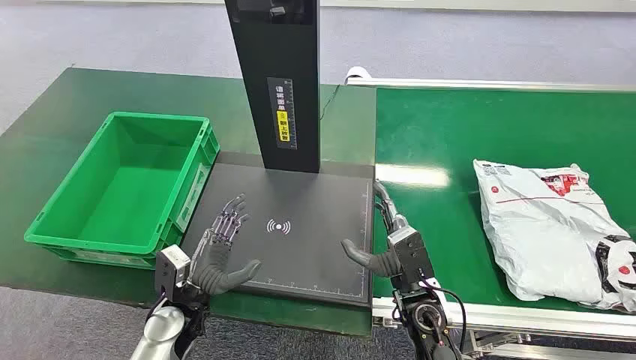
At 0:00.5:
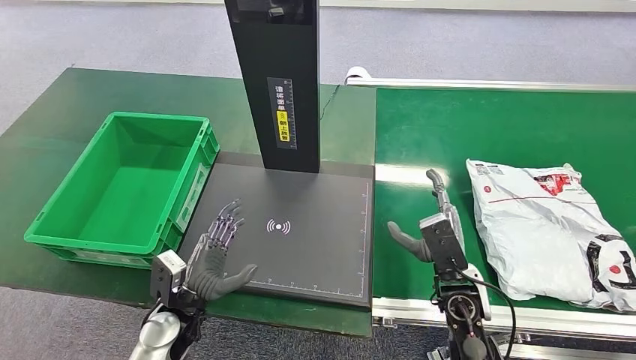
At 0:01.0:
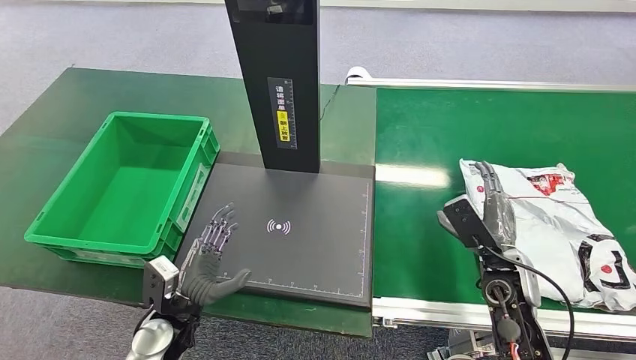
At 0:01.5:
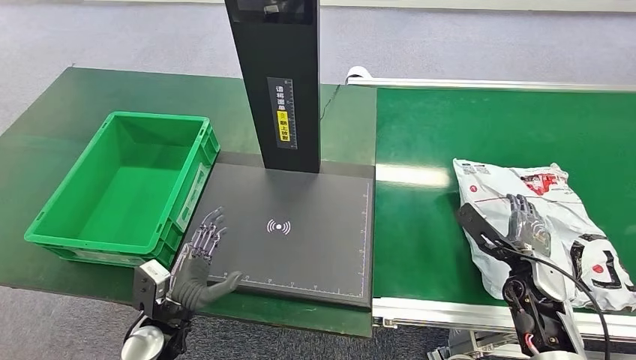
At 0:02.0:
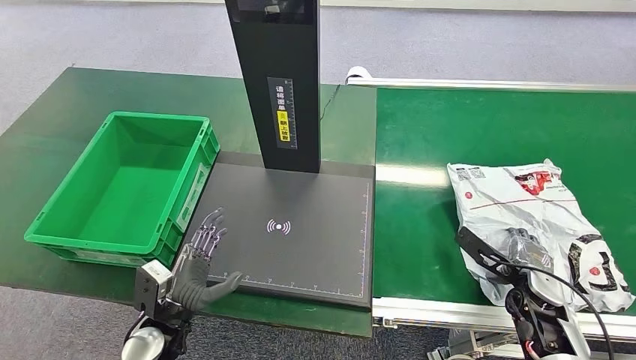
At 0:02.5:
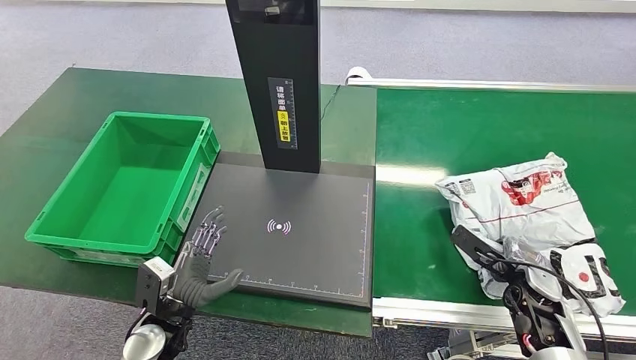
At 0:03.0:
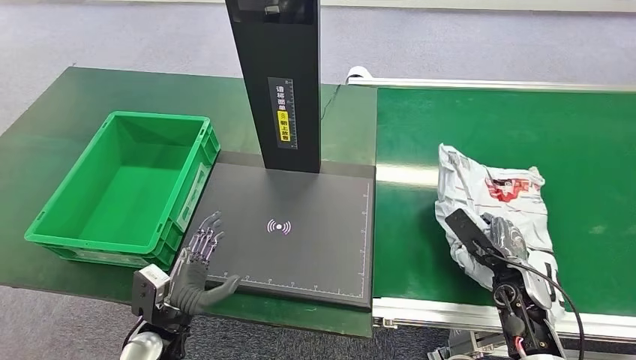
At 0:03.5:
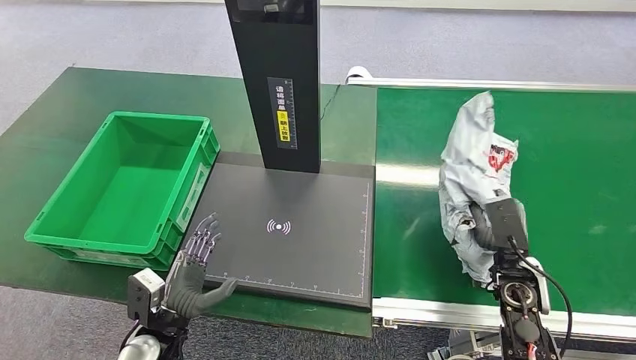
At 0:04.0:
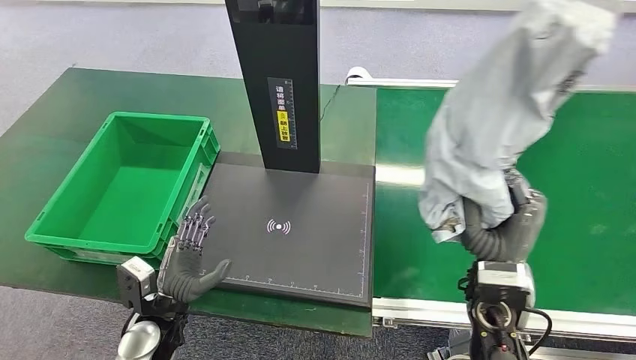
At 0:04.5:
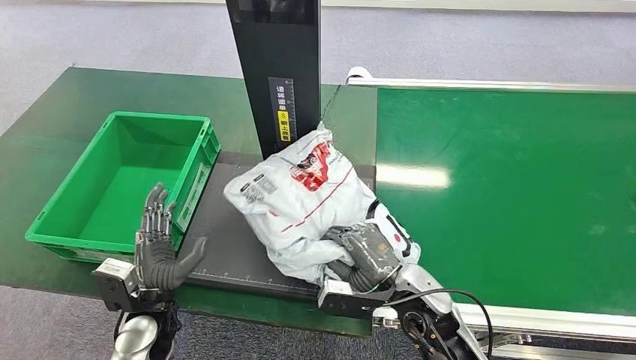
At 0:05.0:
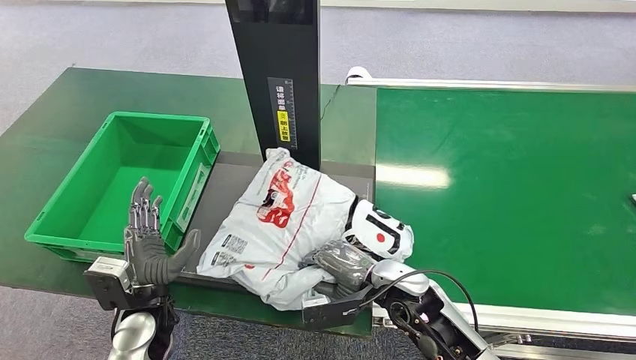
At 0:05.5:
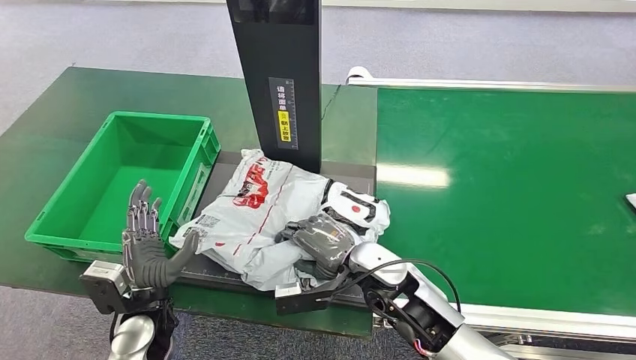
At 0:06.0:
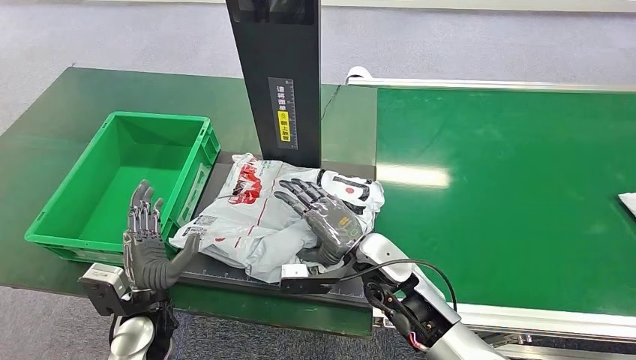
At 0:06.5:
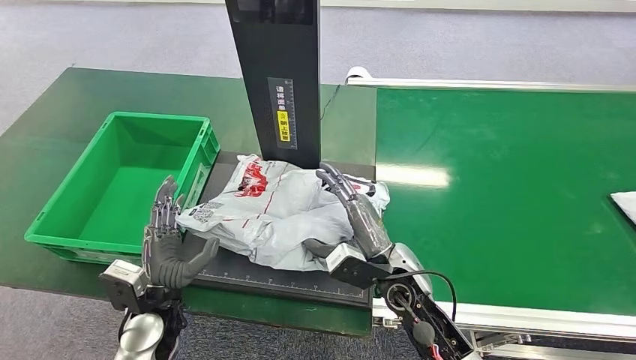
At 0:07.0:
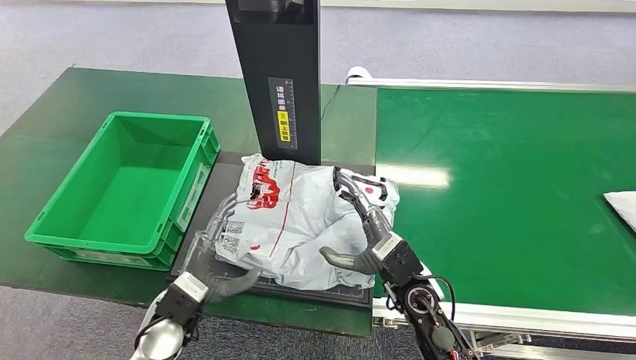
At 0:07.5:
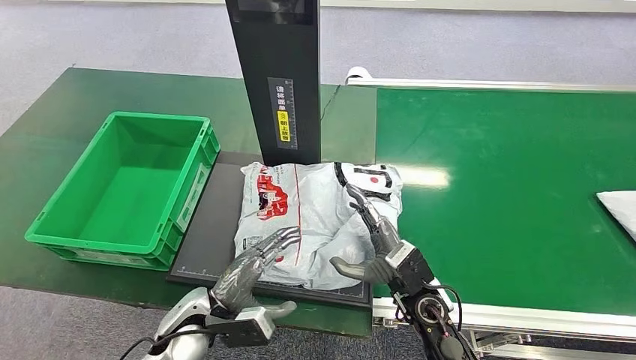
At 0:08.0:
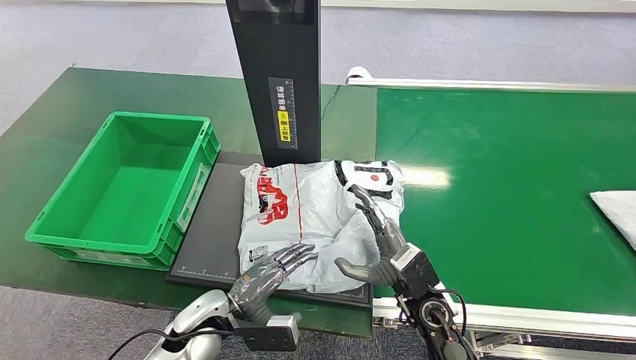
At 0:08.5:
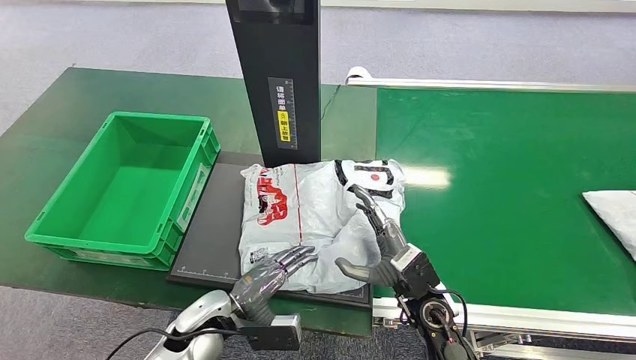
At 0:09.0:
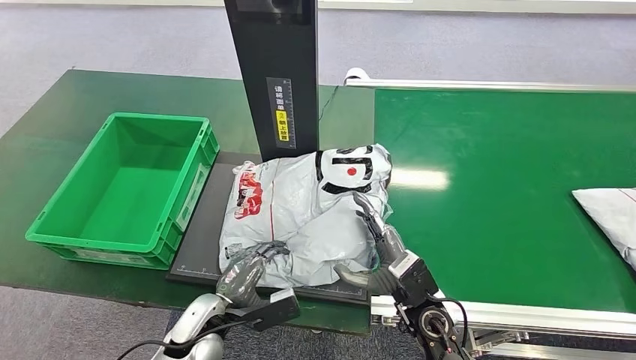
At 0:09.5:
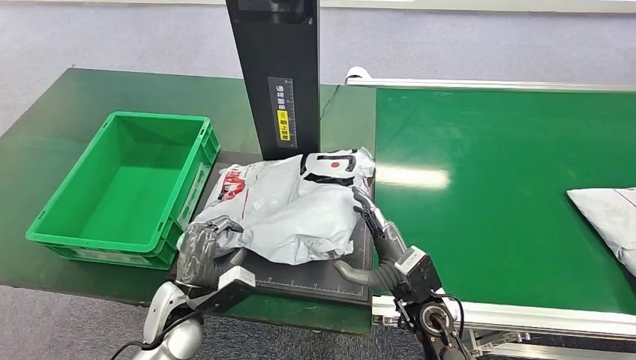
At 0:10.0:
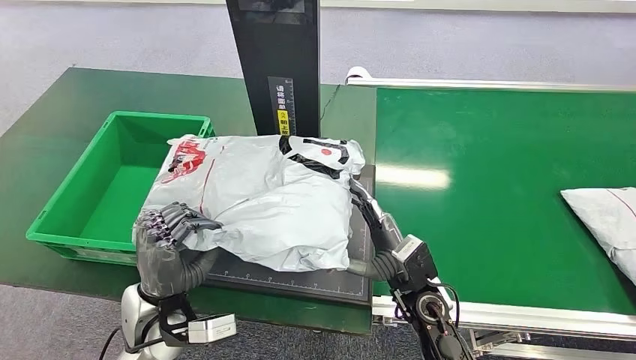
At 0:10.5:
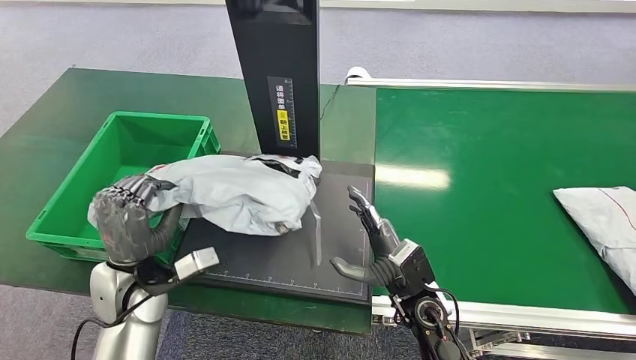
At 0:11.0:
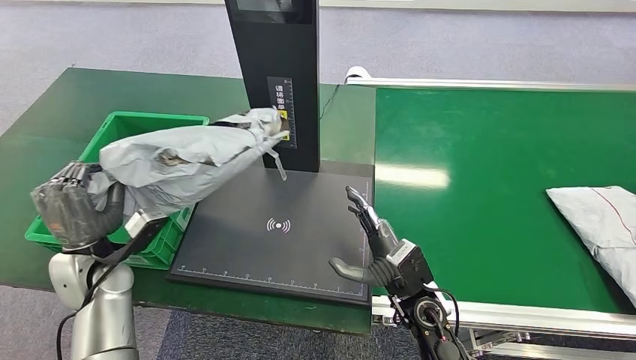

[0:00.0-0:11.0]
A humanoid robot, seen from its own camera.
Step, 0:00.0 to 0:03.5: Pick up the package from the conveyor belt.
Step, 0:04.0 to 0:07.0: Place the package onto the inbound machine.
Step, 0:07.5 to 0:10.5: Pick up the package from the inbound machine.
0:02.0 to 0:03.5: The right hand goes roughly 5 cm to the left.
0:05.5 to 0:07.5: The two hands go some 5 cm to the right.

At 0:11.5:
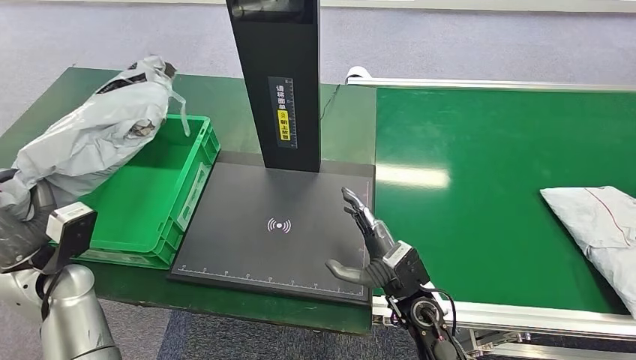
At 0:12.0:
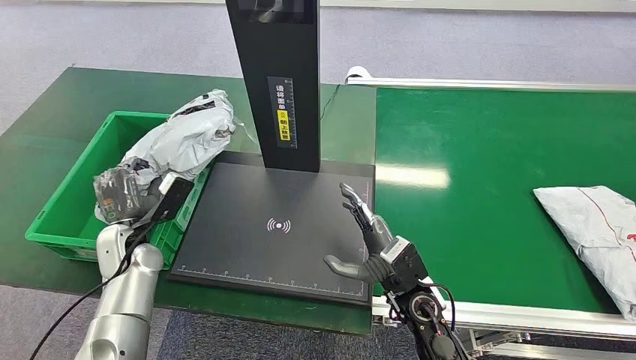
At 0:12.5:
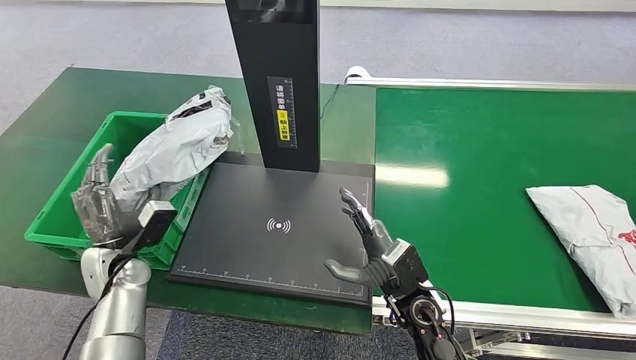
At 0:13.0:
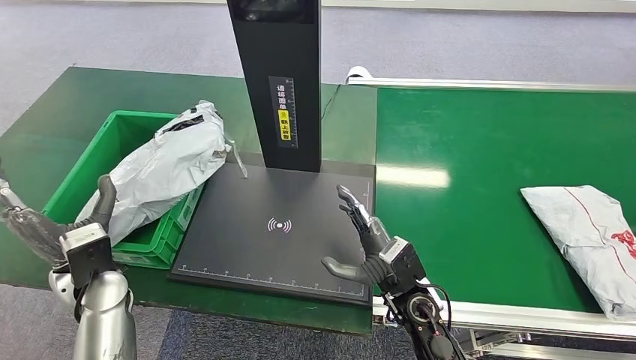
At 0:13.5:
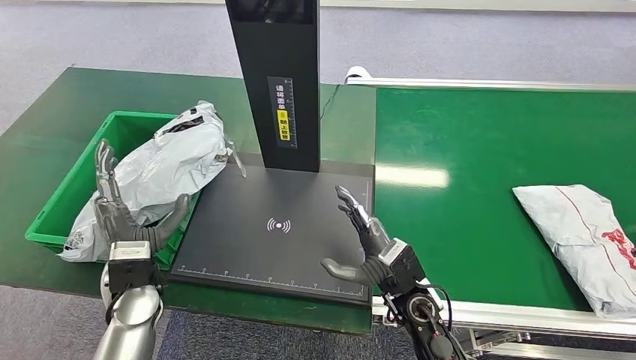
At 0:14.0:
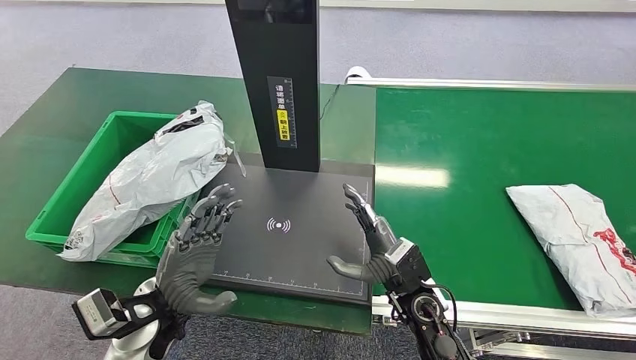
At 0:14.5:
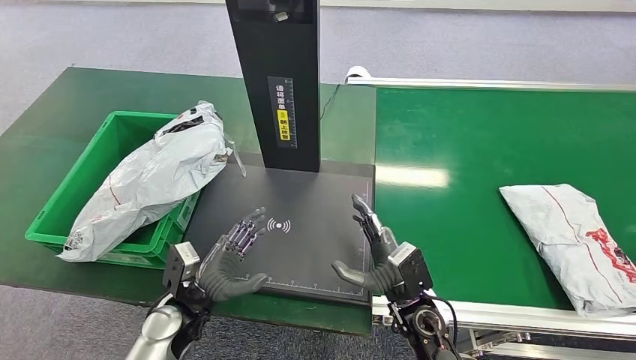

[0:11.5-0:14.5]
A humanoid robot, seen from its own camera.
Step, 0:11.5 to 0:14.5: Place the package into the parcel locker.
0:13.0 to 0:14.5: The left hand shifts roughly 15 cm downward and to the right.
